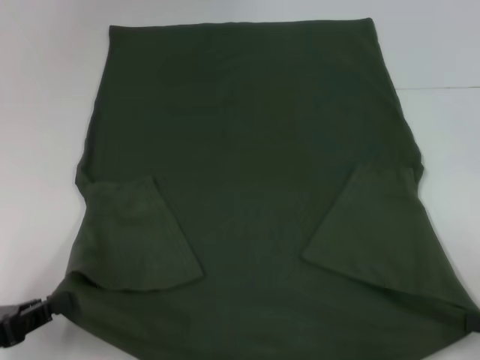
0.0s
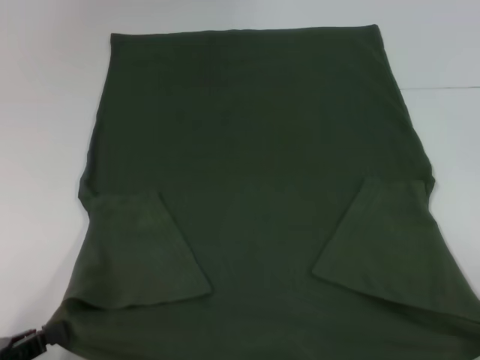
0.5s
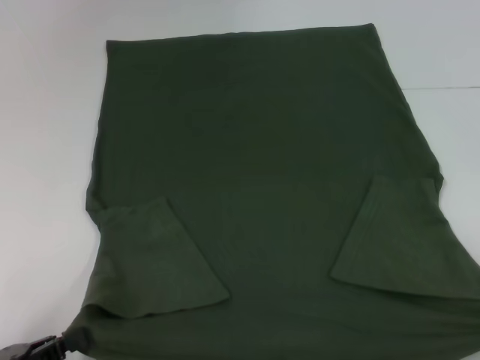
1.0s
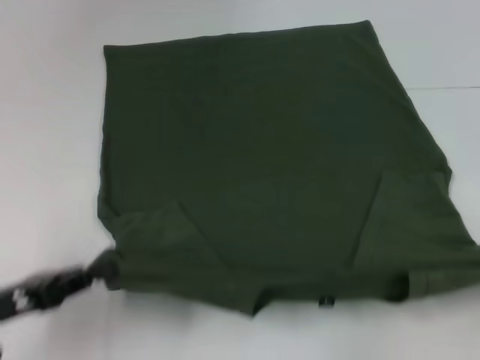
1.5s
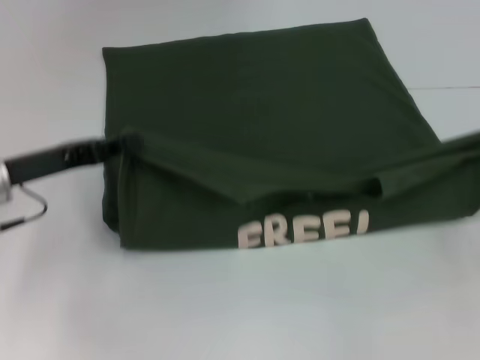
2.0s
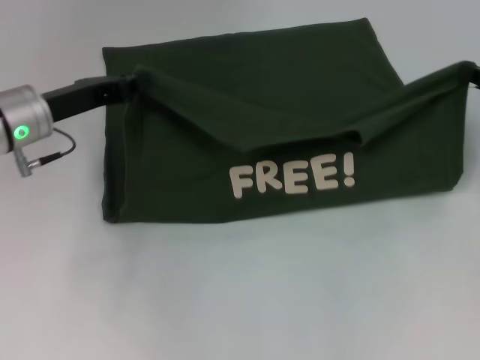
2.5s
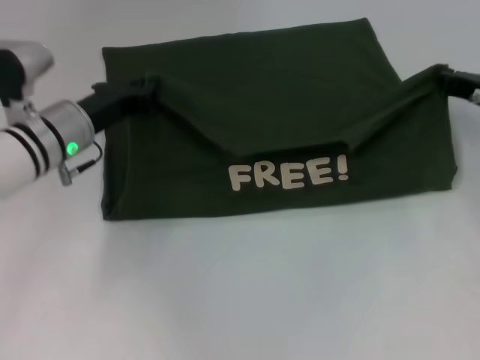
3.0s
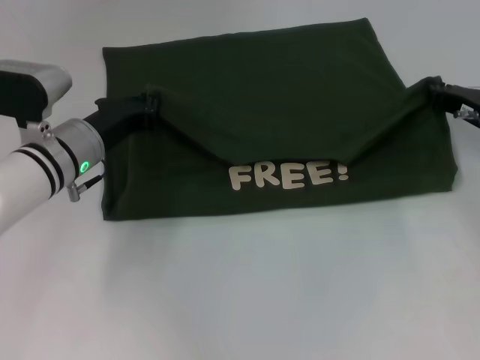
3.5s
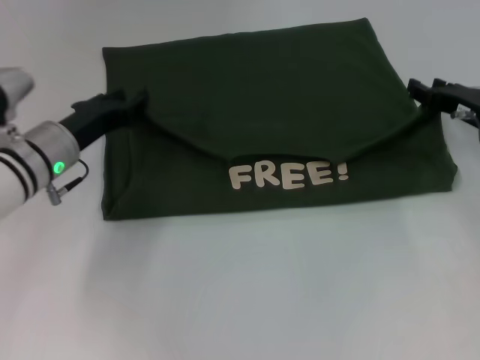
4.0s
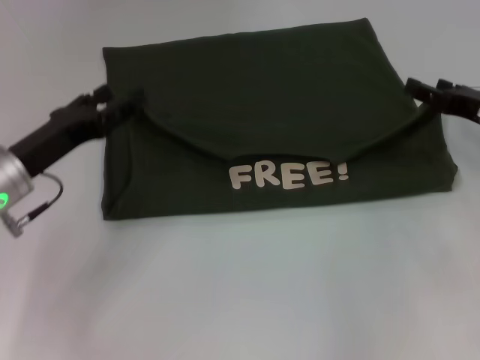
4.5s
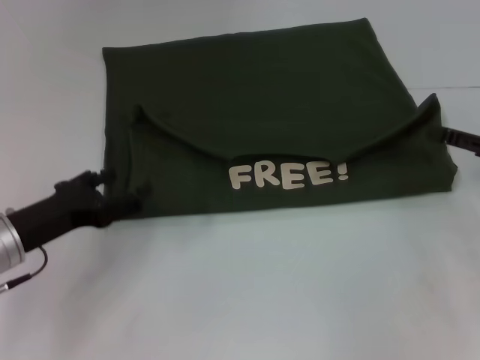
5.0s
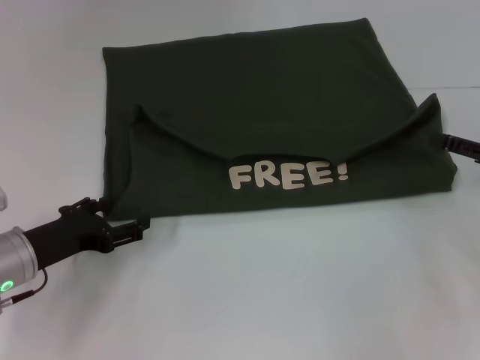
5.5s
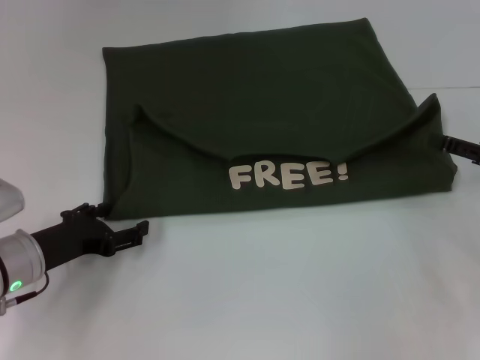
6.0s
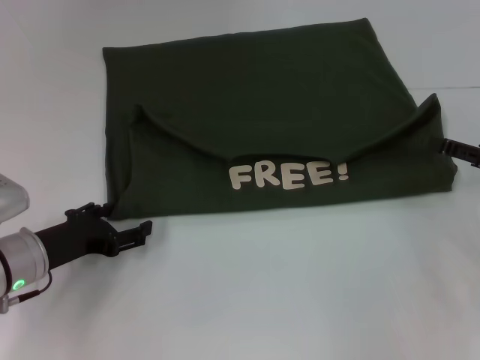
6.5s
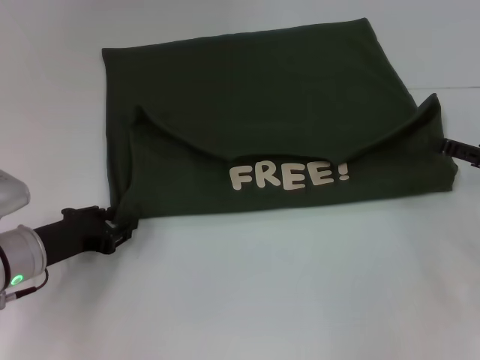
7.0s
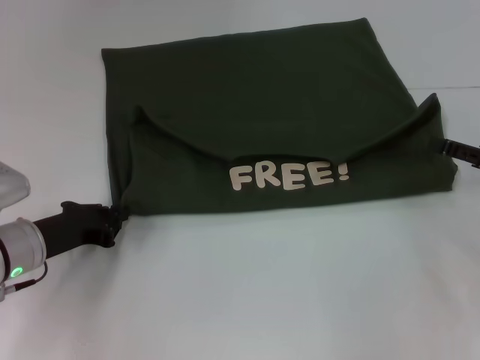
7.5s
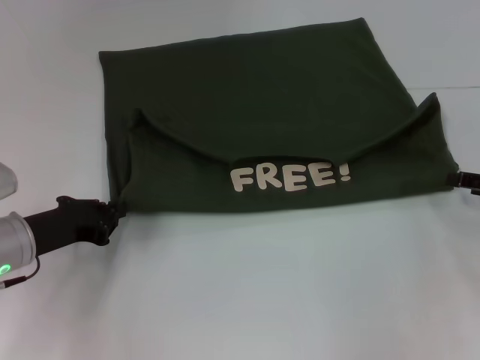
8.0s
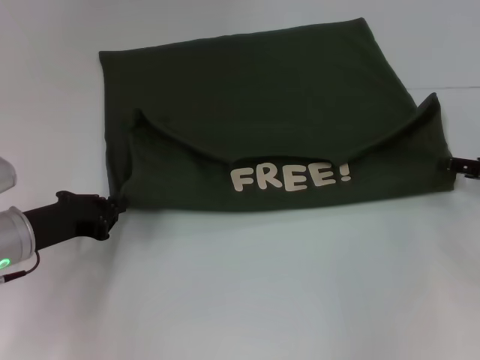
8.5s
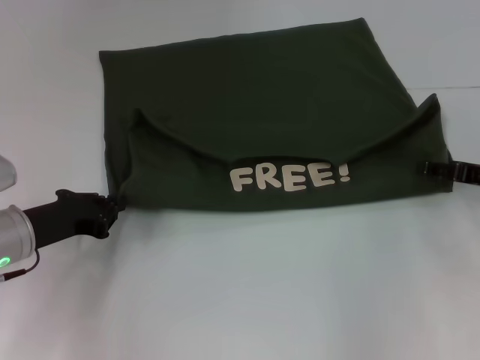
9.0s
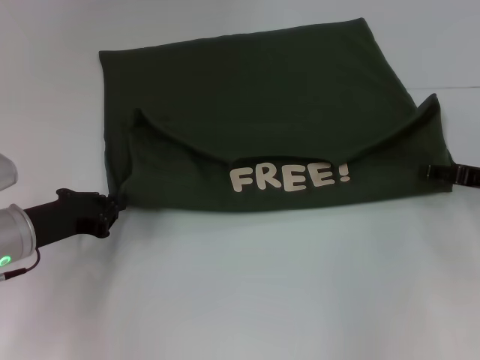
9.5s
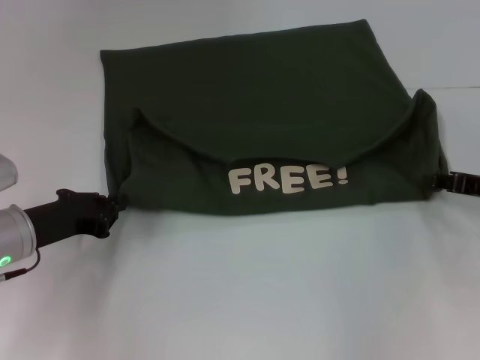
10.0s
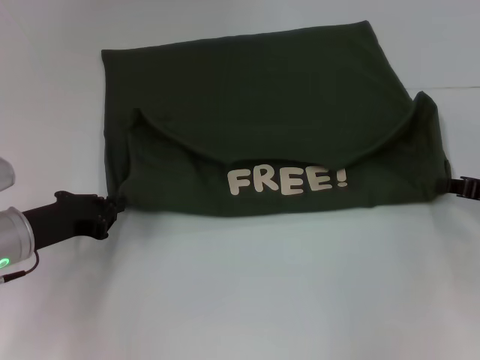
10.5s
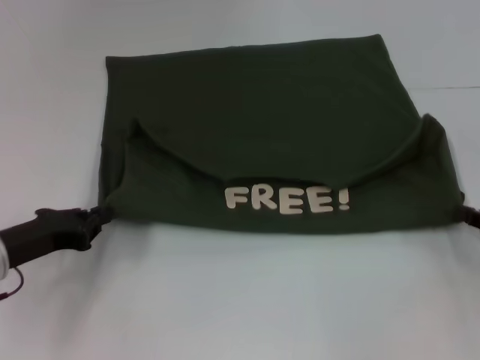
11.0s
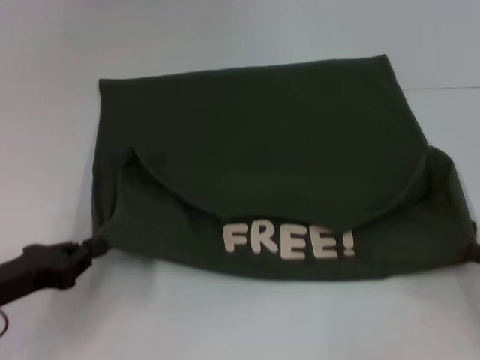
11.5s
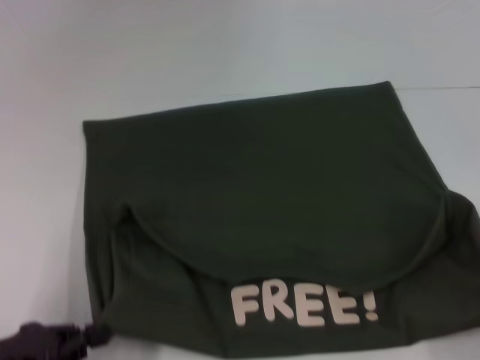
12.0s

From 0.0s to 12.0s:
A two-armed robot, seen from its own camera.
Step, from 0.0s to 4.0s: Fold the clothes with your left hand.
Step, from 0.0s to 4.0s: Fold the clothes with your right hand.
From 0.0s to 2.0s: The right gripper goes approximately 15 cm forward and upward. Meanwhile the left gripper shifts about 15 cm forward.
From 2.0s to 4.0s: The left gripper moves to the right, roughly 5 cm. The right gripper shifts about 15 cm forward and to the left.
From 4.0s to 6.0s: The right gripper heads backward and to the right, covering roughly 10 cm, and opens its fingers. Meanwhile the left gripper shifts some 10 cm backward and downward, and opens up.
From 6.0s to 8.0s: The left gripper closes its fingers.
From 8.0s to 10.0s: The grippers move only a little.
From 10.0s to 12.0s: The two grippers go approximately 15 cm backward. The right gripper closes.

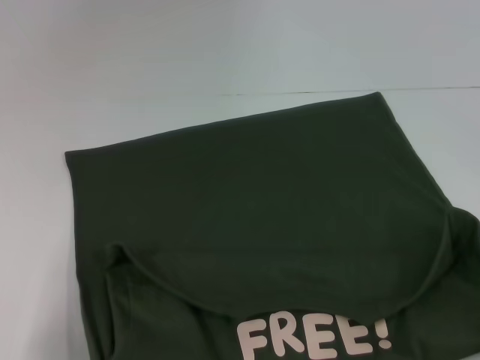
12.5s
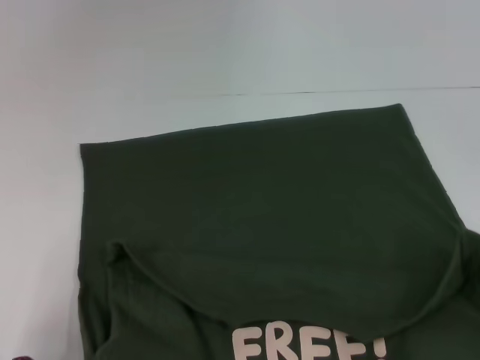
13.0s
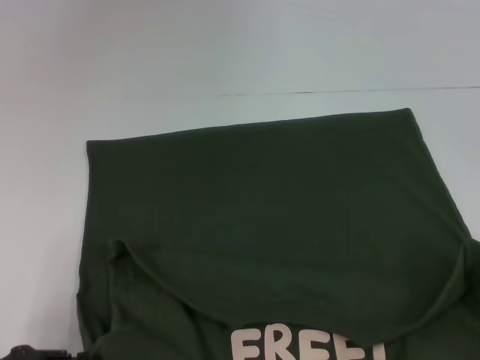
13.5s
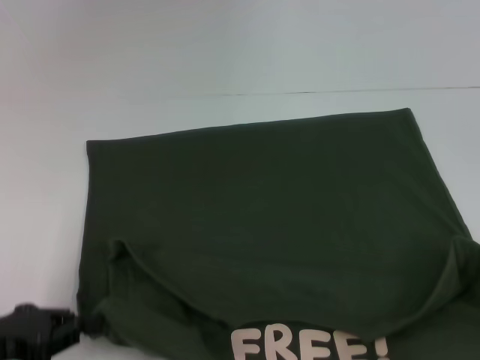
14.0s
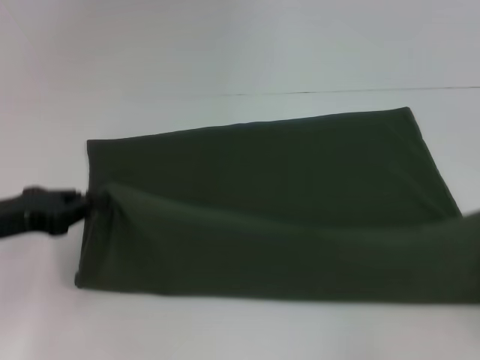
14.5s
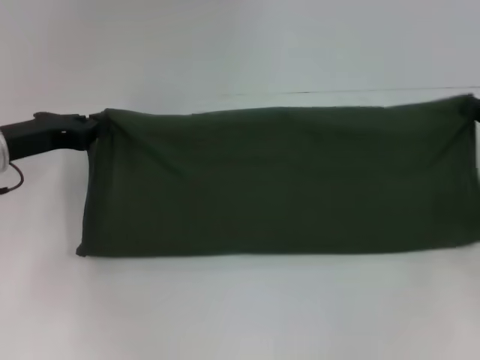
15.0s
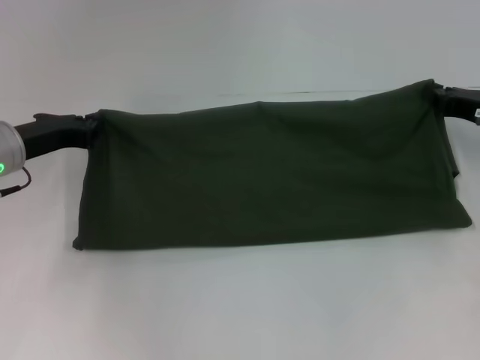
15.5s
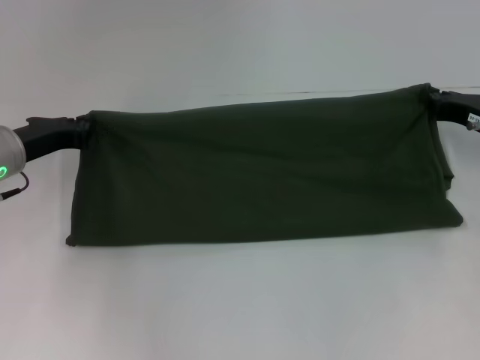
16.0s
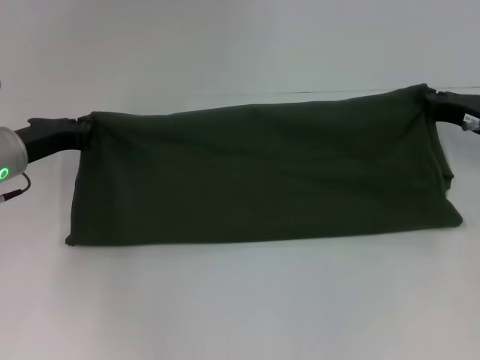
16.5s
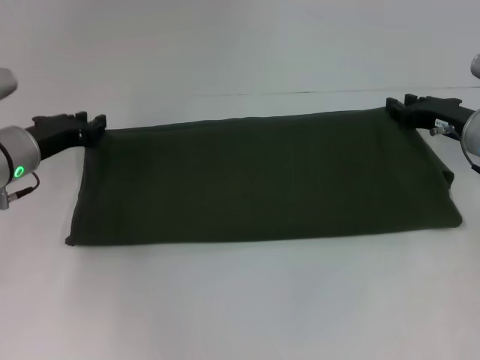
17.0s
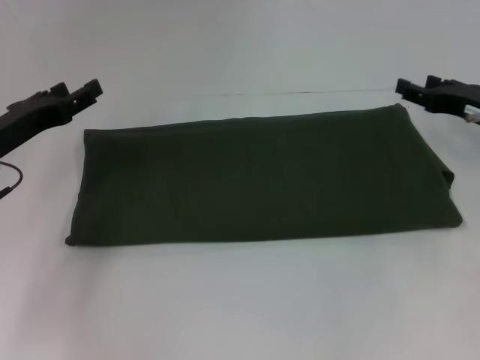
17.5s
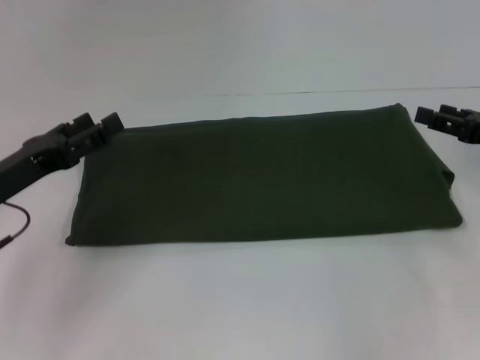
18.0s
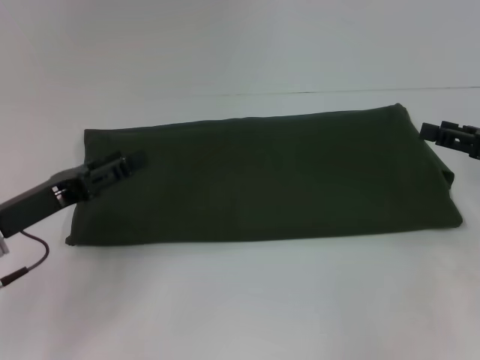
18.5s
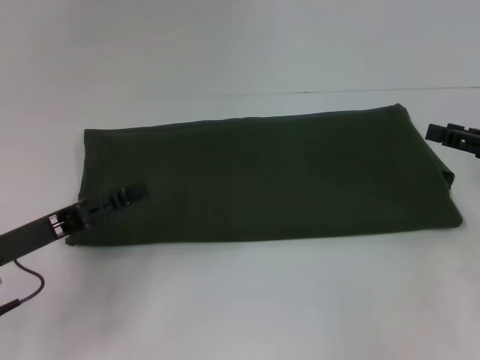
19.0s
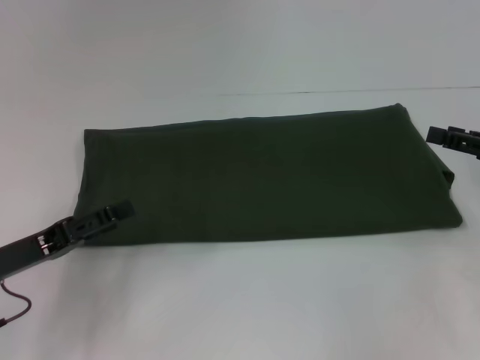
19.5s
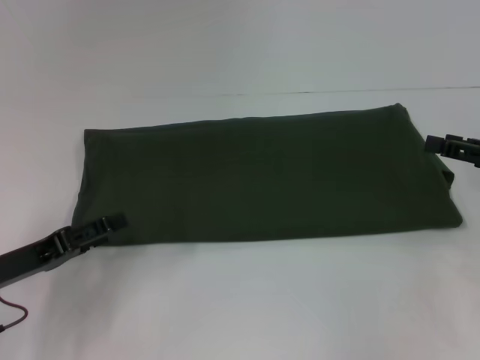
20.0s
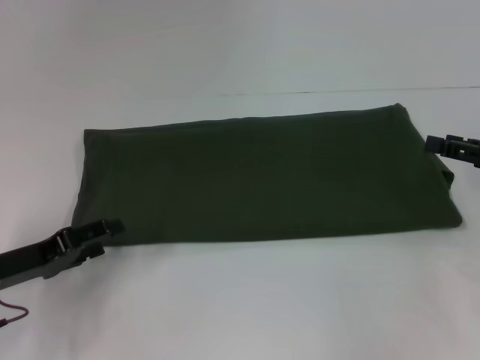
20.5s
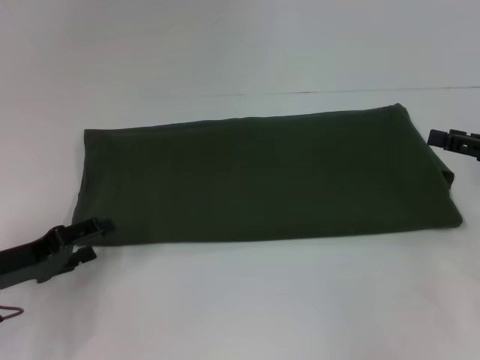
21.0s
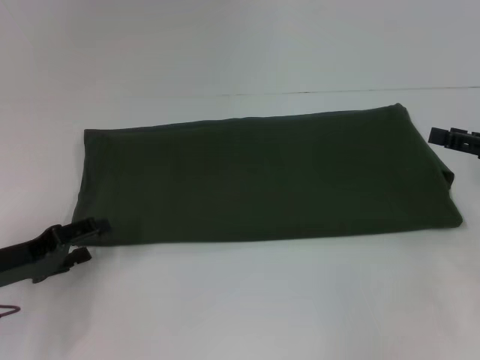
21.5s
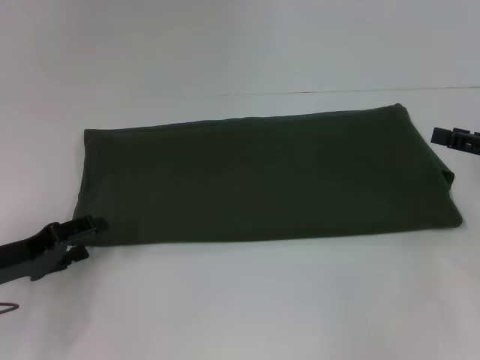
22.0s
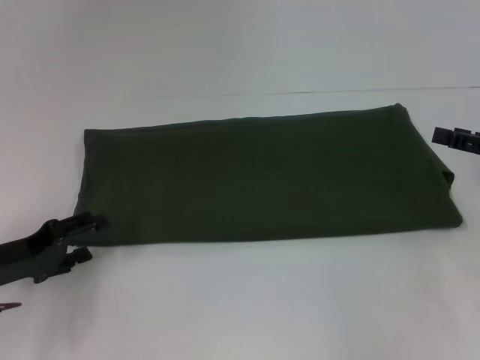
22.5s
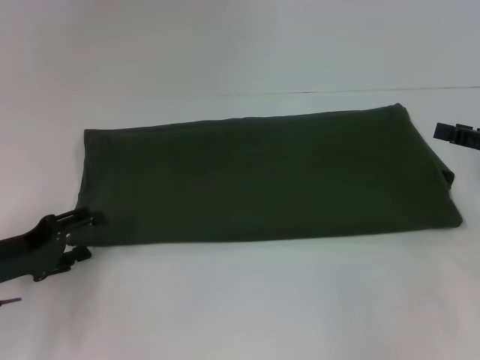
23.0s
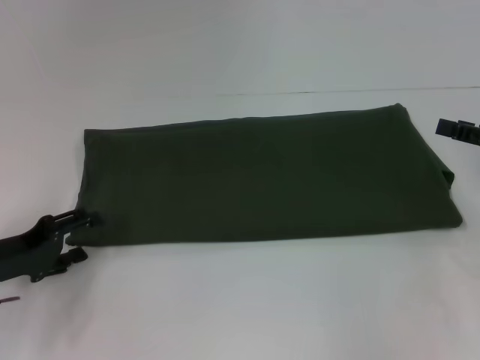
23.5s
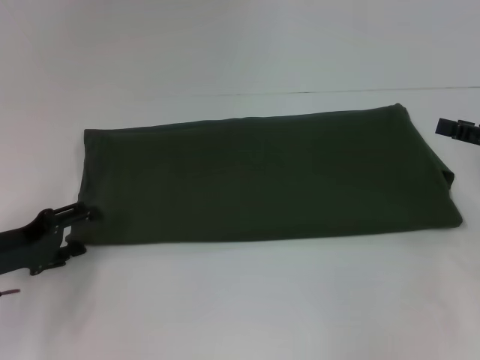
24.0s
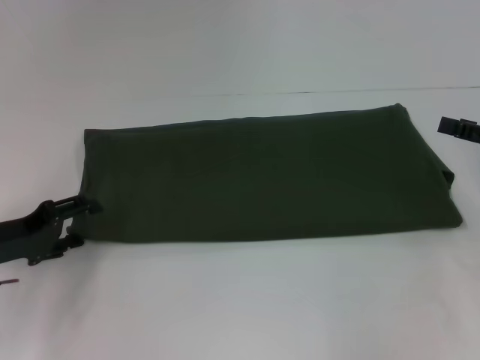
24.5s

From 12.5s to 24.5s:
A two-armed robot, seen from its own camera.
Step, from 14.0s to 17.5s: Fold the clothes with your right hand.
From 12.5s to 14.5s: The right gripper is displaced forward by roughly 10 cm; the left gripper shifts some 15 cm forward.
From 14.5s to 16.5s: The right gripper heads forward and to the left, covering roughly 20 cm. Meanwhile the left gripper travels forward by about 10 cm.
From 16.5s to 18.5s: The right gripper travels backward by roughly 5 cm, and opens. The left gripper is displaced backward by roughly 10 cm, and opens its fingers.
From 20.5s to 24.5s: There are only small adjustments of the grippers.

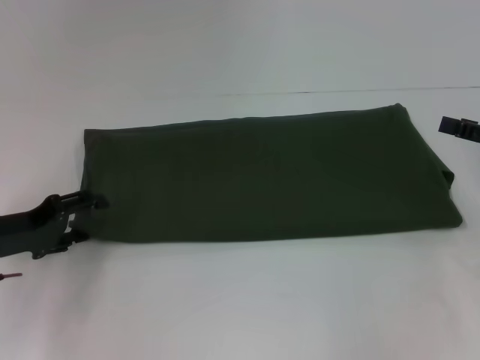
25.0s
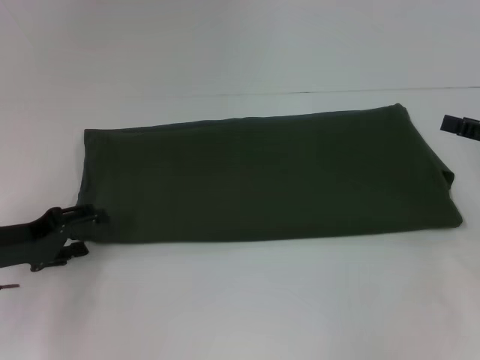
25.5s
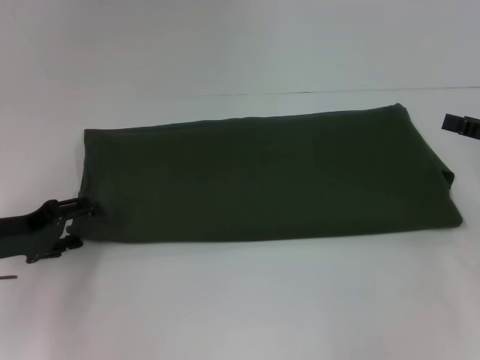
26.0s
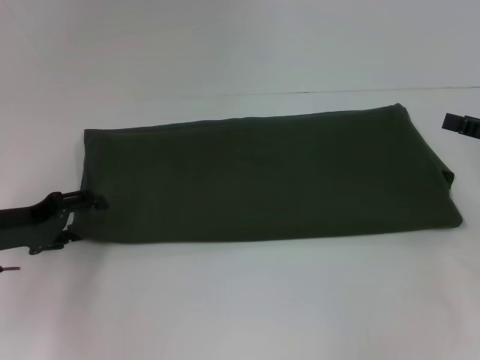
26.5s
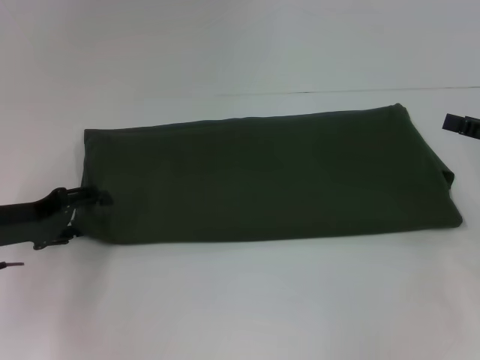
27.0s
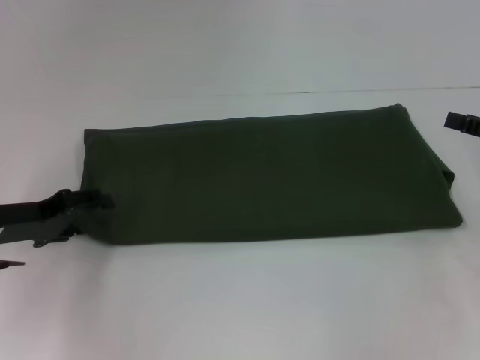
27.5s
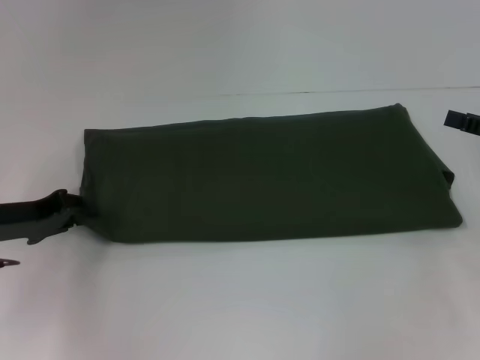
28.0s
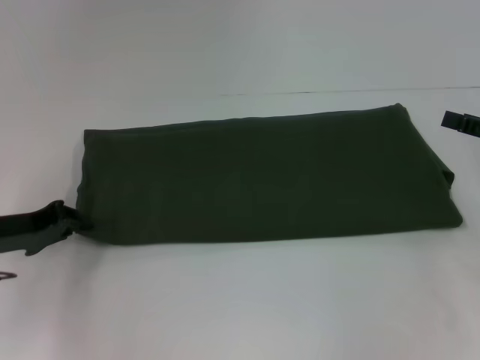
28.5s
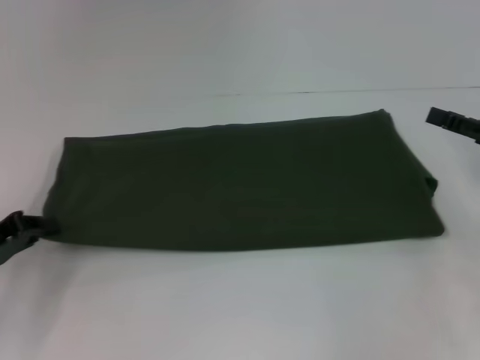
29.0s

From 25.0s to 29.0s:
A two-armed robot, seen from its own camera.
From 25.0s to 27.0s: The grippers move only a little.
From 27.0s to 29.0s: The left gripper ends up some 5 cm from where it was, and closes its fingers.
